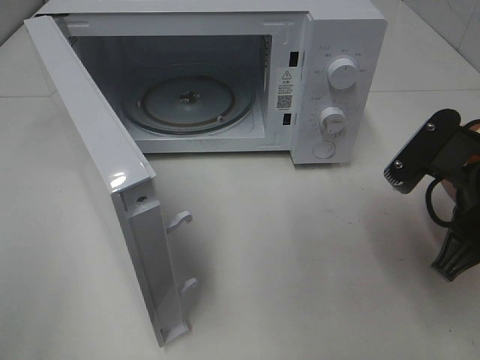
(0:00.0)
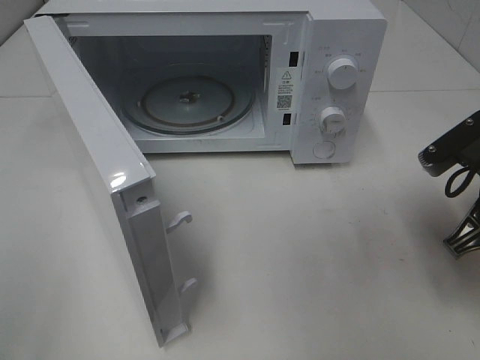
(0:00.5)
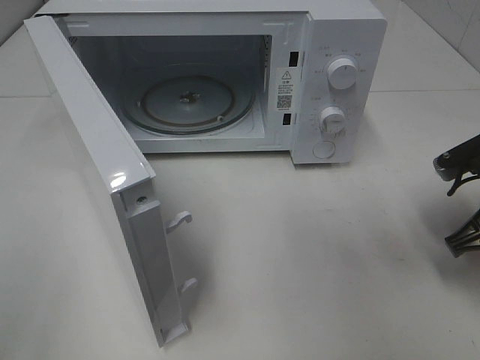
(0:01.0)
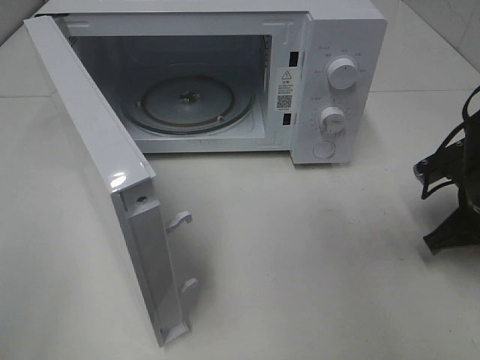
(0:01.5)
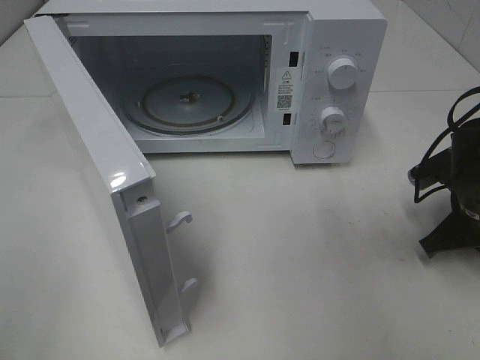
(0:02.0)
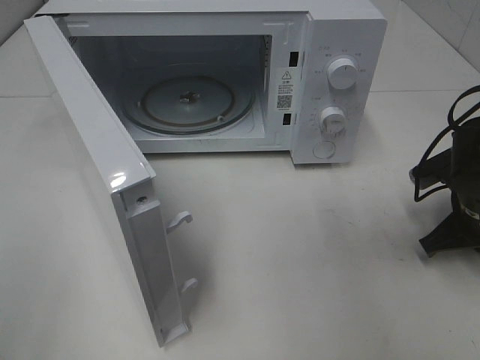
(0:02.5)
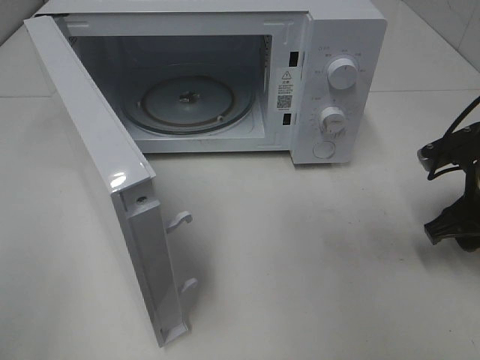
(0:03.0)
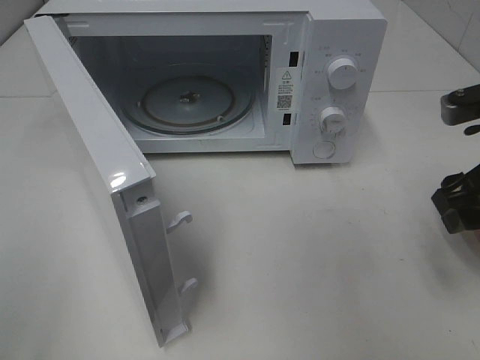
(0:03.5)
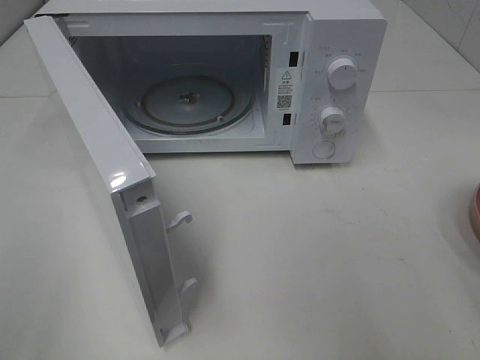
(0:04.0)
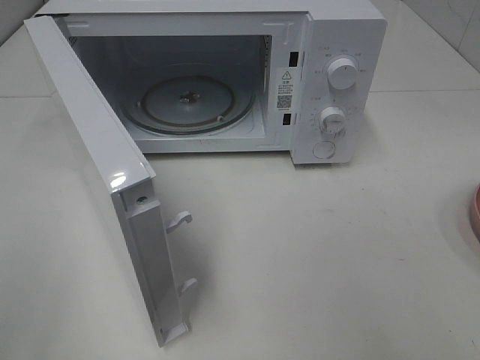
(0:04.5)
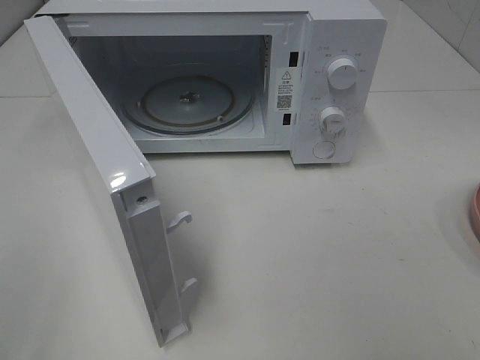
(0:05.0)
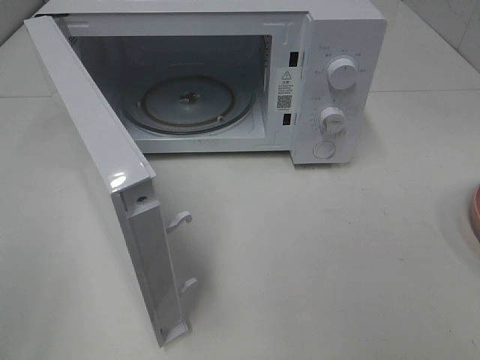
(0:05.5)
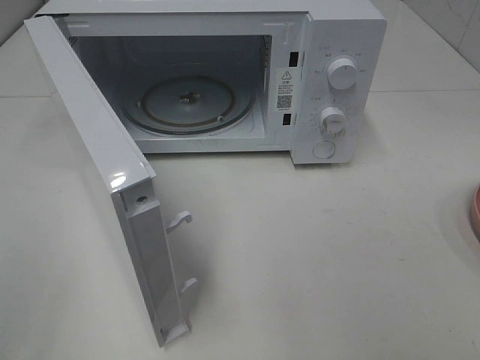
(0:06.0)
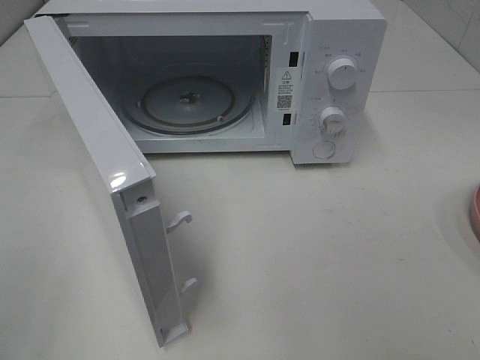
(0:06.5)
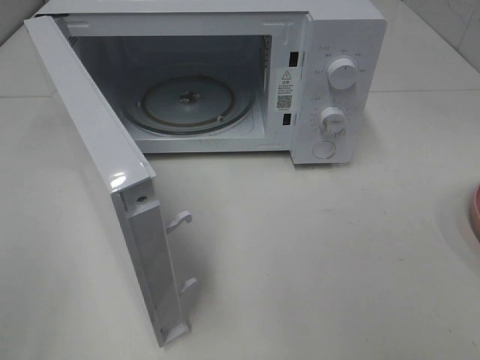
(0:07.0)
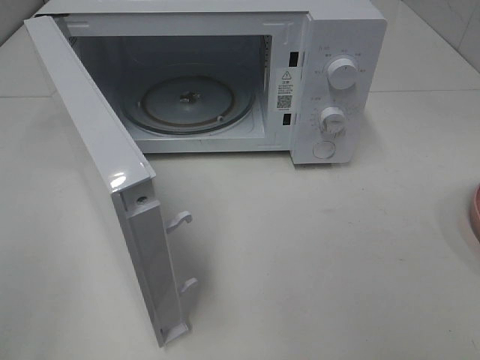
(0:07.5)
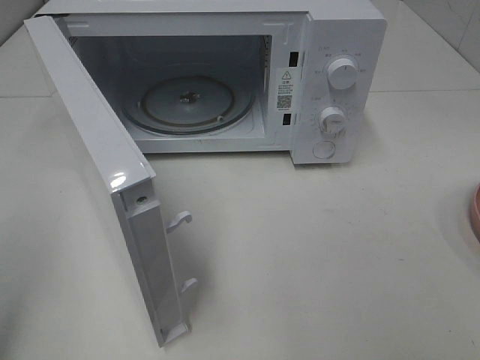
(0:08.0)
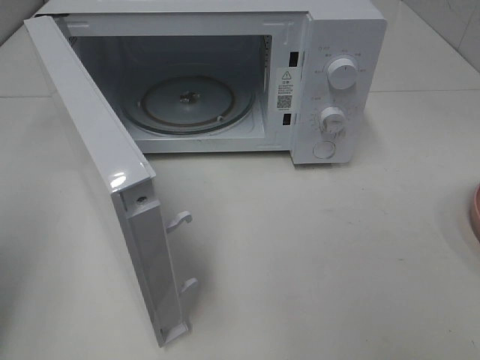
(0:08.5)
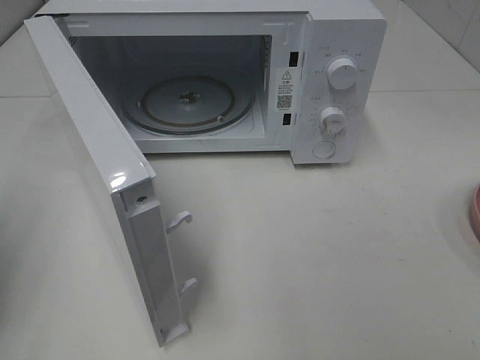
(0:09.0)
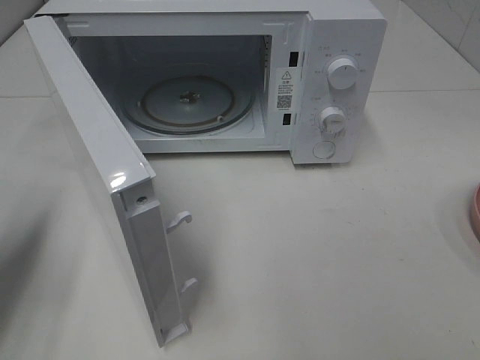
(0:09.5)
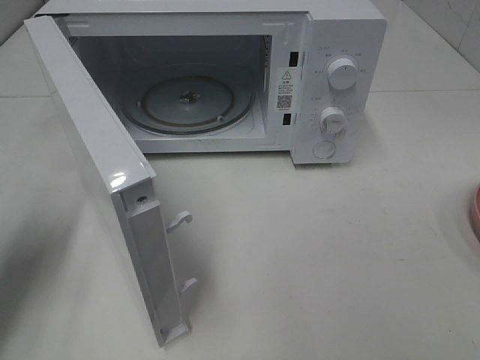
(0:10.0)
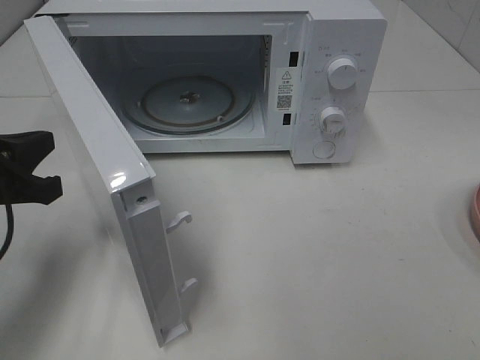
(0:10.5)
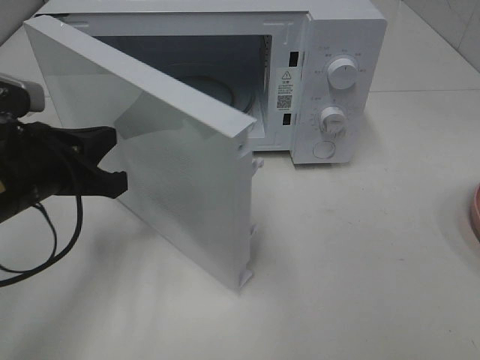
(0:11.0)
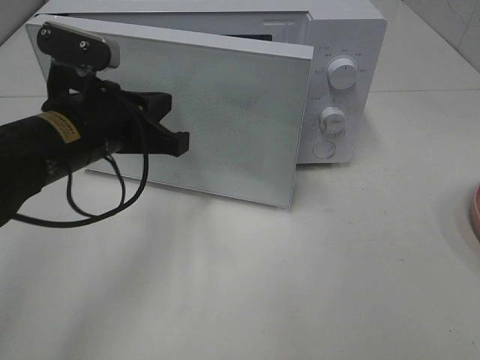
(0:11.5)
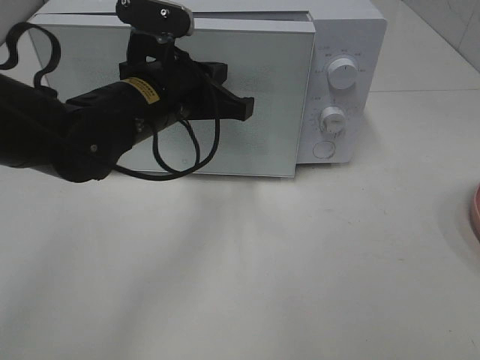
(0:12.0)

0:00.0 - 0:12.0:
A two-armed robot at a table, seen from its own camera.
Task of the whole recording: Heat Sandwich.
Step, 0:00.0 - 0:03.0: Right hand: place the plate on the table.
0:00.0 - 0:02.0: The right gripper shifts some 15 cm downward, forward and to the right.
0:02.0 - 0:04.0: The right gripper moves upward and backward, roughly 25 cm, and opens its fingers.
0:08.0 - 0:10.0: The left gripper heads forward and downward, covering roughly 20 cm.
0:10.0 - 0:12.0: The left gripper moves to the right and forward, approximately 25 cm.

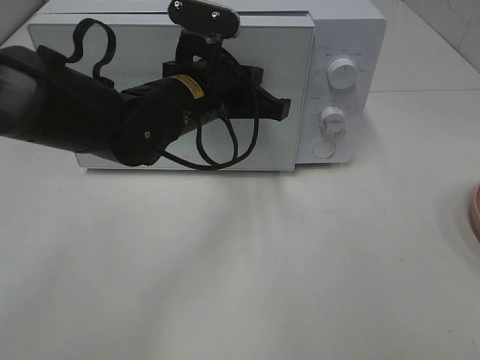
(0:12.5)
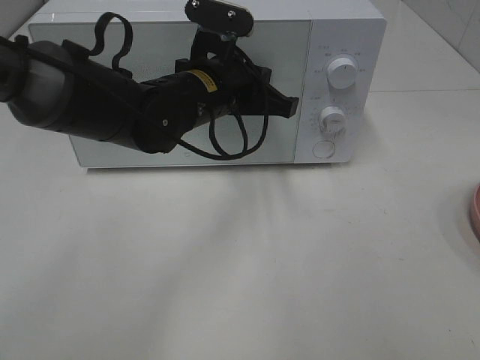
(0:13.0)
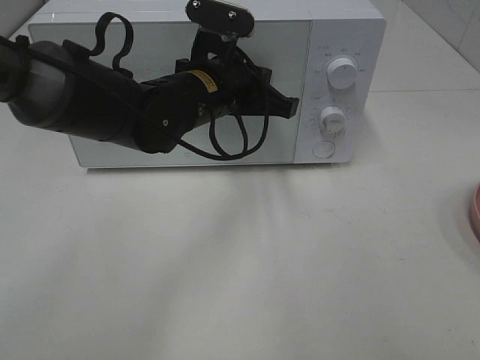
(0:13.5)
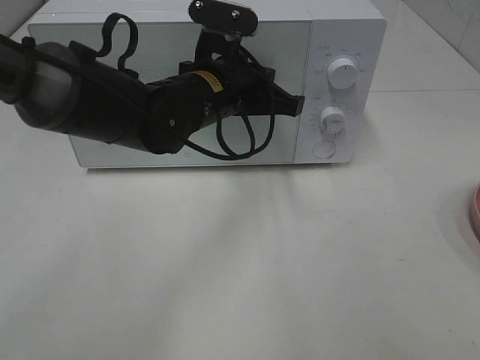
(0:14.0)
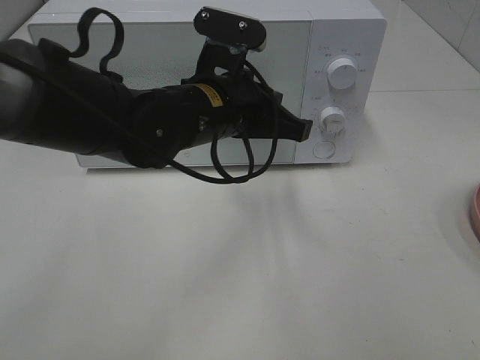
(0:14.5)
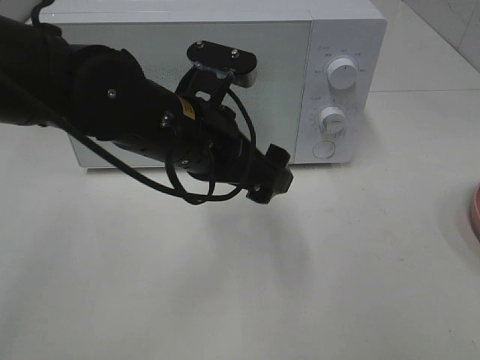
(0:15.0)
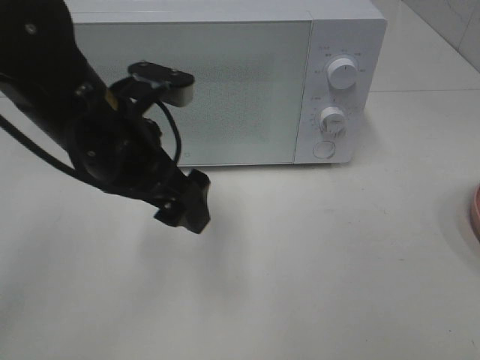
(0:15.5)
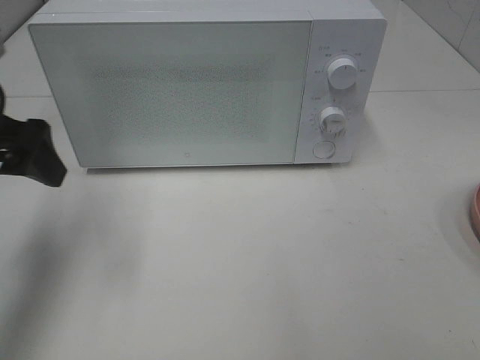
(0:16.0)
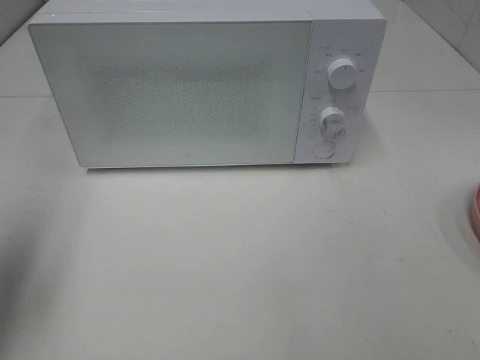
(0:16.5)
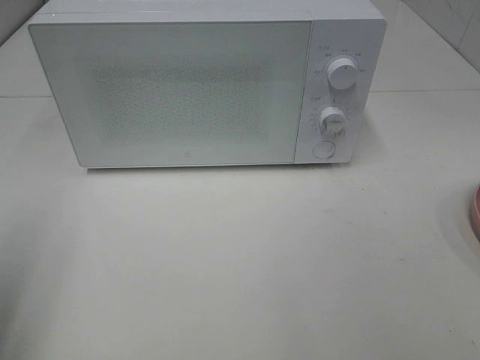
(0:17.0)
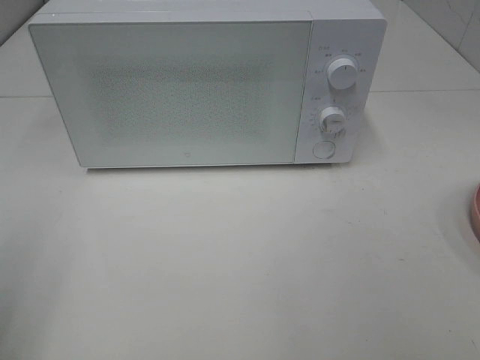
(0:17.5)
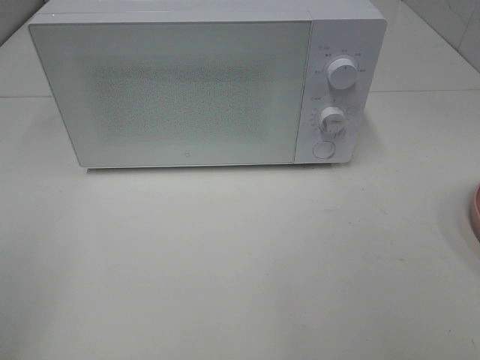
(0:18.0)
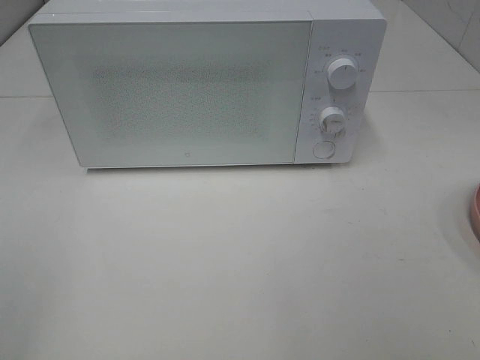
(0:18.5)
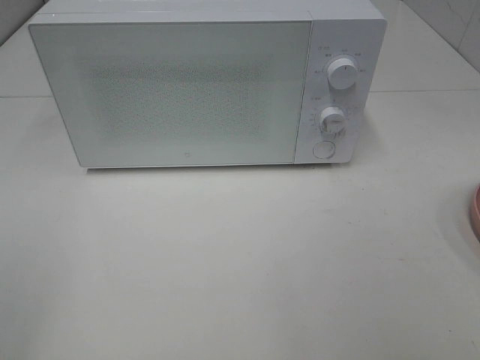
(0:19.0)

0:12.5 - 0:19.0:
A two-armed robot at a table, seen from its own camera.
Task of the whole recording: Heat Sandwich.
Step, 0:12.5 - 0:14.5: Left hand: close the microwave door.
0:12.5 - 0:14.5: The grippers make only small movements.
0:14.5 - 0:17.0: The left gripper moves to the left and backward, roughly 35 cm, and opens its fingers.

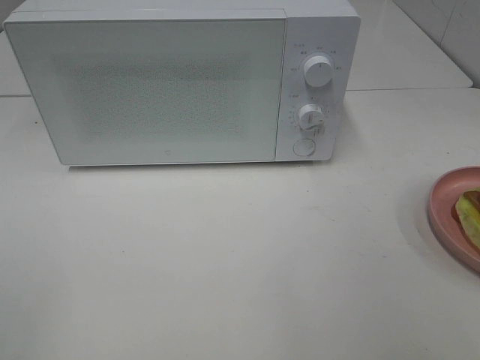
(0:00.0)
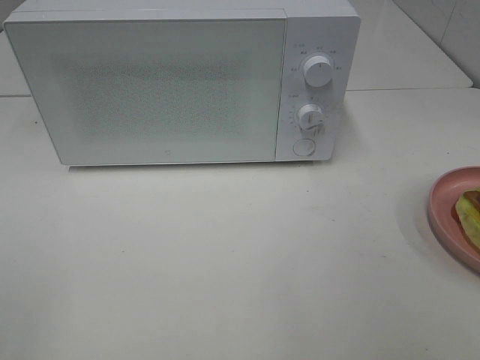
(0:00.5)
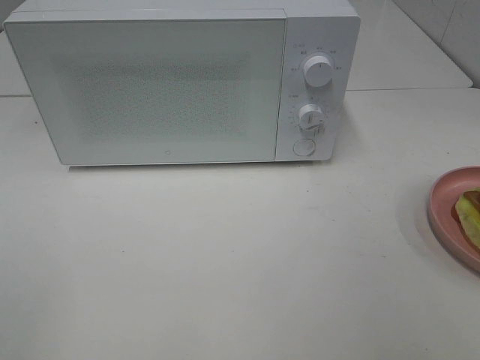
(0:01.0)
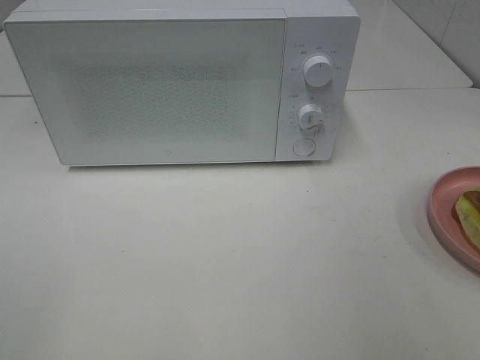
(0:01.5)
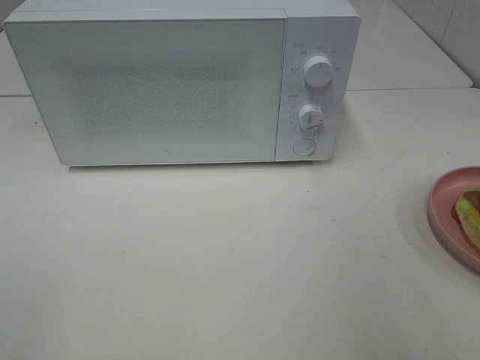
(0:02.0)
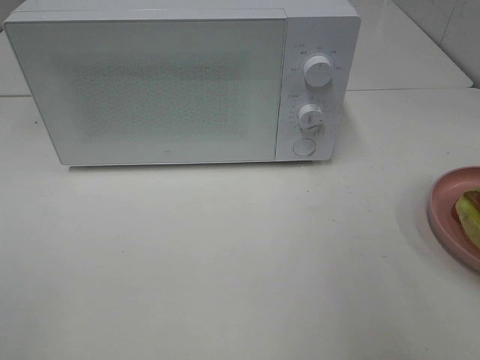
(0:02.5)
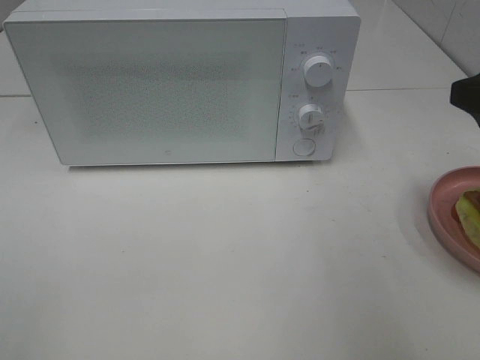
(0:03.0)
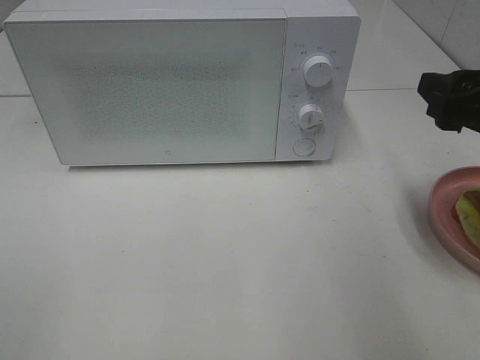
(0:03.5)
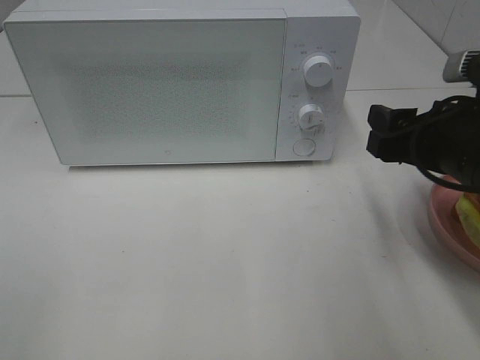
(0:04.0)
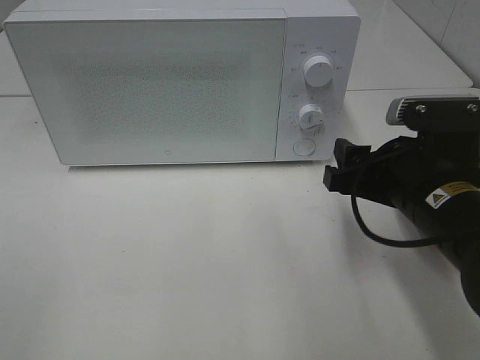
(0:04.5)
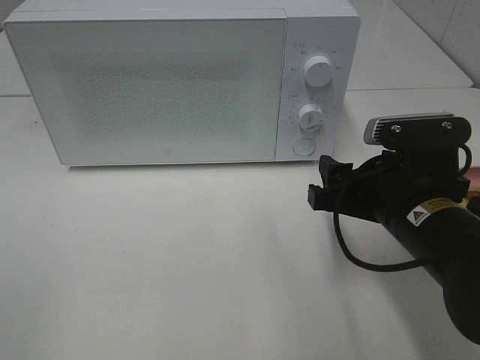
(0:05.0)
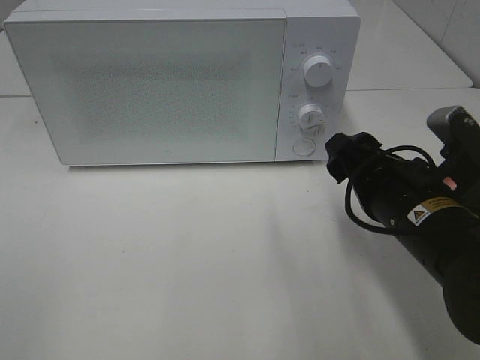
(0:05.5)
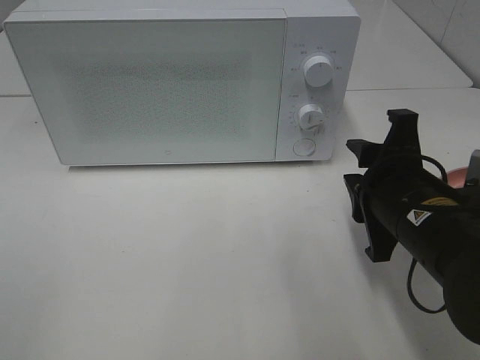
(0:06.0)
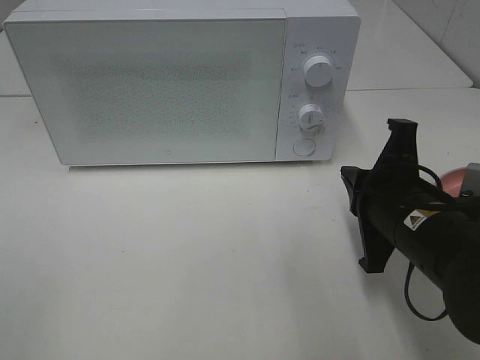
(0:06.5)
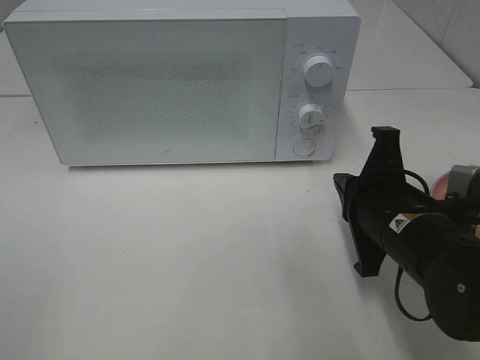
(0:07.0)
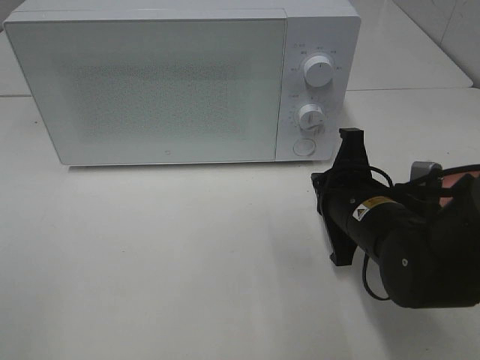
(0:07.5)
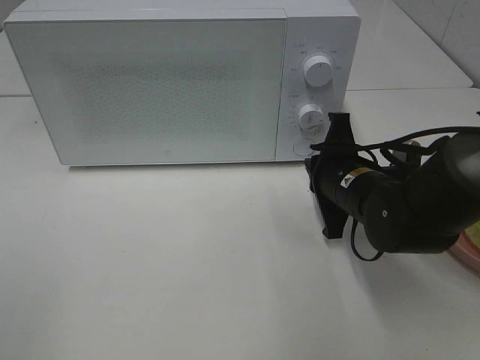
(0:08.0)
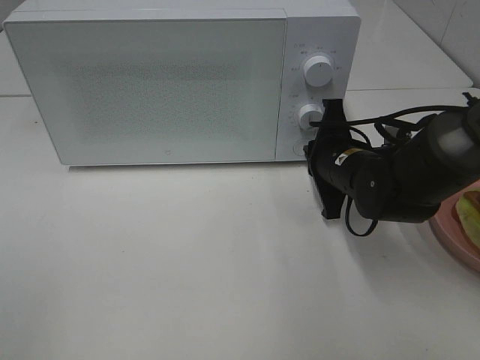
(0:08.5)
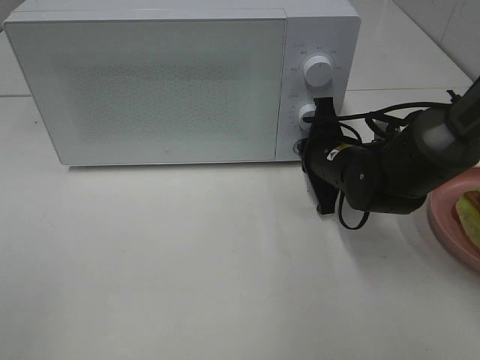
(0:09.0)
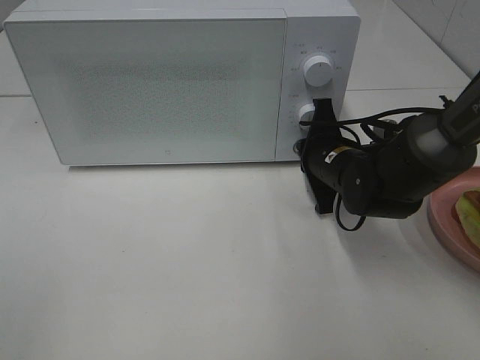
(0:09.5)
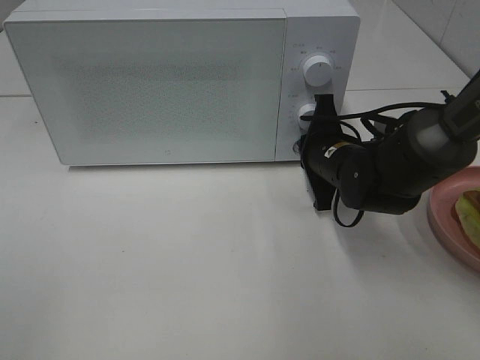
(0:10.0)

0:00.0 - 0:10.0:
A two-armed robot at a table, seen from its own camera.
Task of the whole recording: Heat Sandwich.
0:02.0 - 0:04.0: The right gripper is displaced forward, downward and to the left by approximately 15 cm.
0:04.0 - 0:06.0: The right gripper moves to the left, roughly 5 cm.
0:06.0 - 0:08.0: The right gripper moves forward, some 10 cm, and closes up.
0:08.0 - 0:10.0: The right gripper is displaced forward by about 5 cm.
